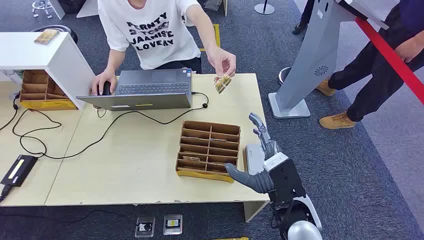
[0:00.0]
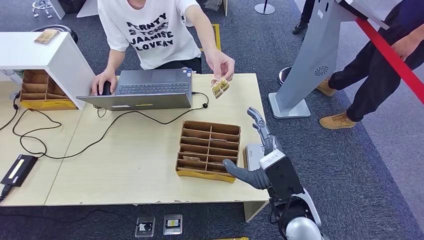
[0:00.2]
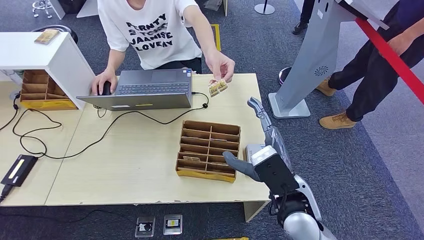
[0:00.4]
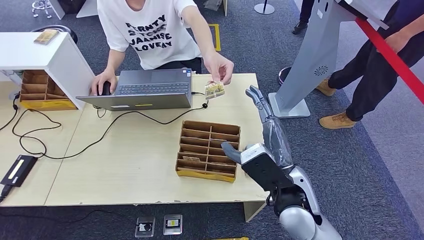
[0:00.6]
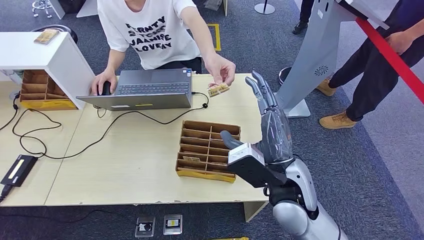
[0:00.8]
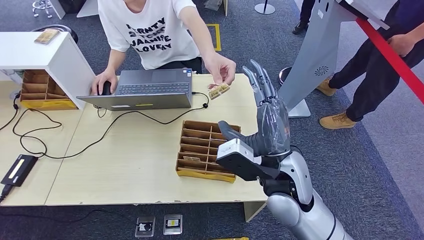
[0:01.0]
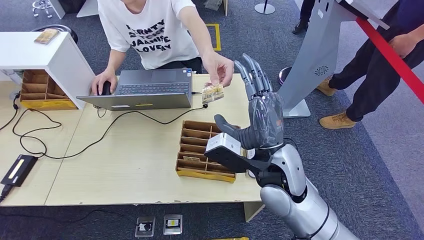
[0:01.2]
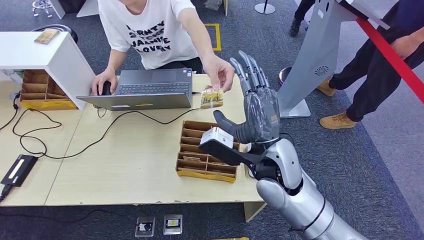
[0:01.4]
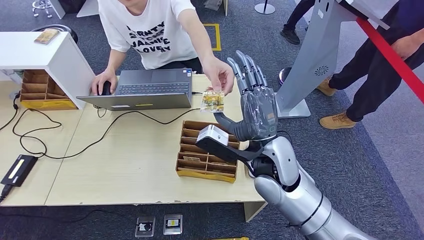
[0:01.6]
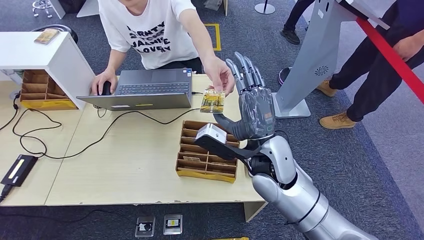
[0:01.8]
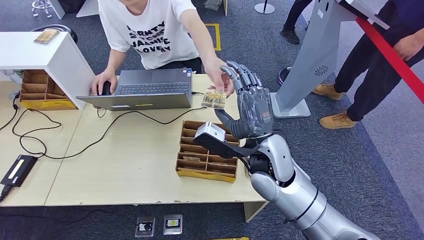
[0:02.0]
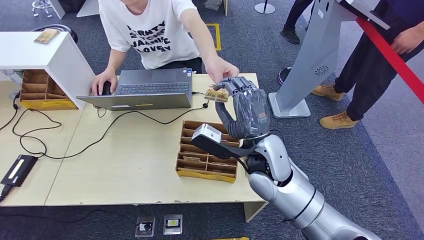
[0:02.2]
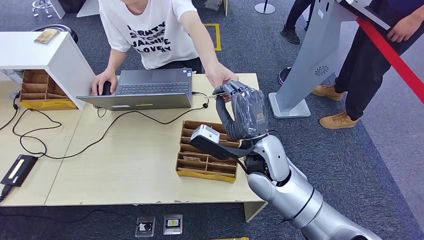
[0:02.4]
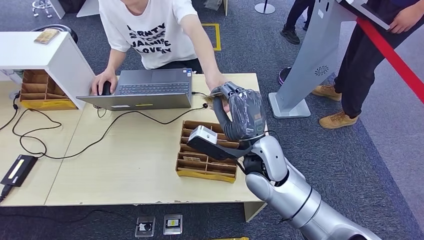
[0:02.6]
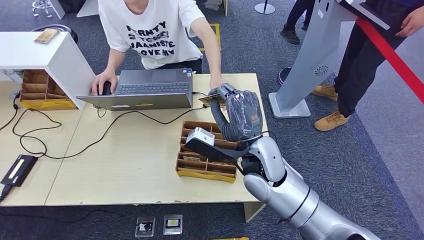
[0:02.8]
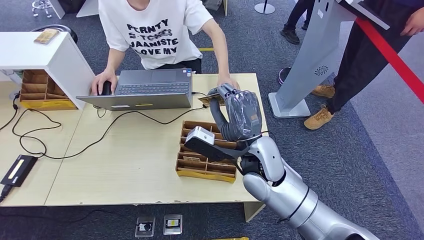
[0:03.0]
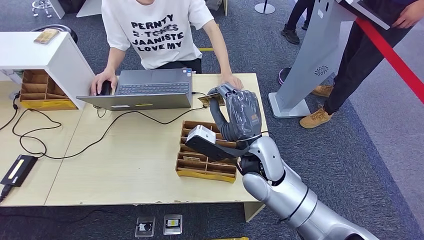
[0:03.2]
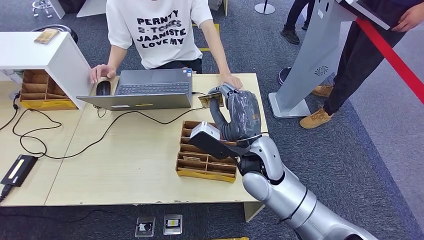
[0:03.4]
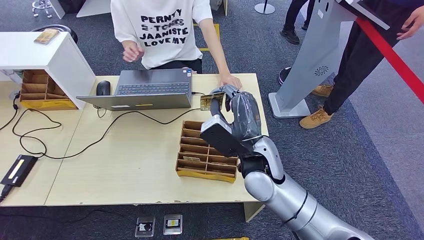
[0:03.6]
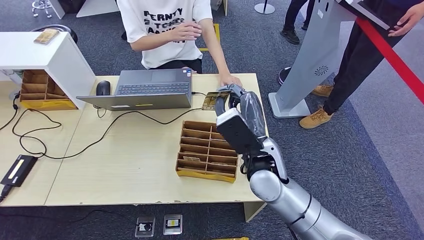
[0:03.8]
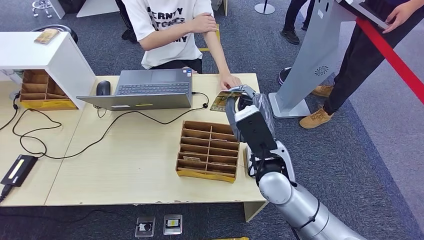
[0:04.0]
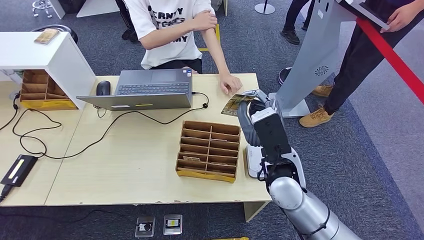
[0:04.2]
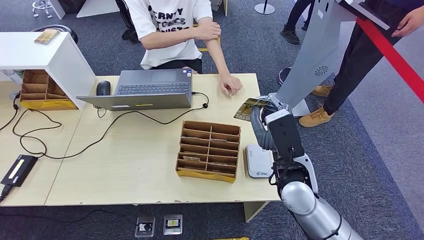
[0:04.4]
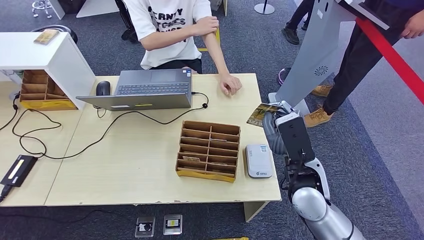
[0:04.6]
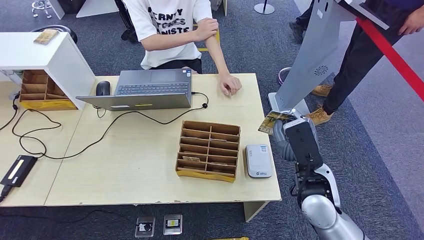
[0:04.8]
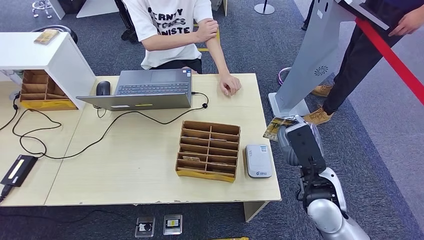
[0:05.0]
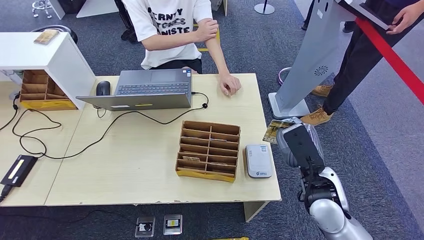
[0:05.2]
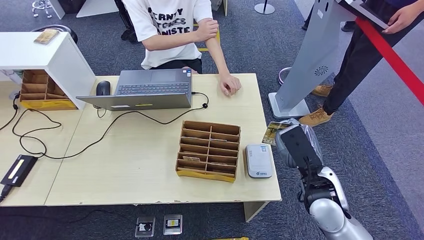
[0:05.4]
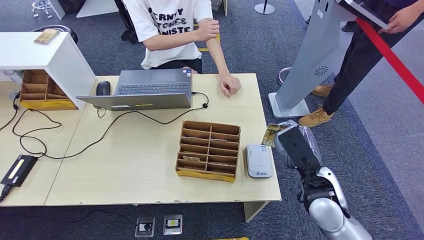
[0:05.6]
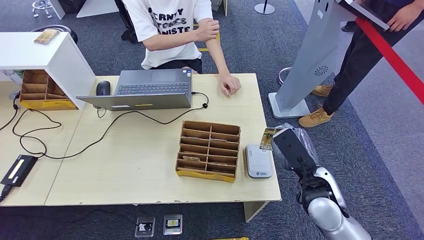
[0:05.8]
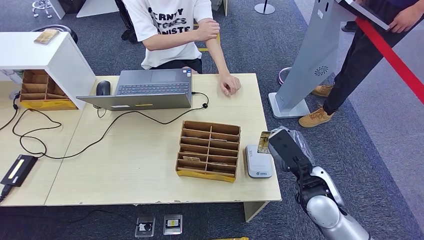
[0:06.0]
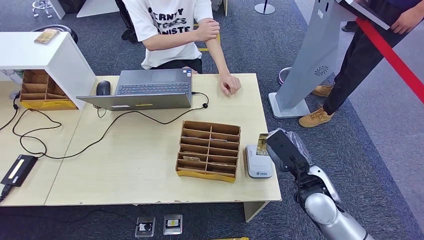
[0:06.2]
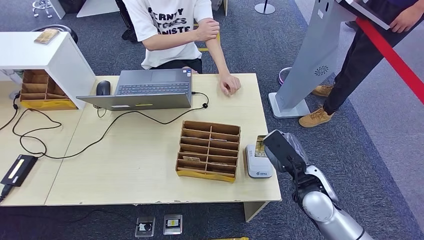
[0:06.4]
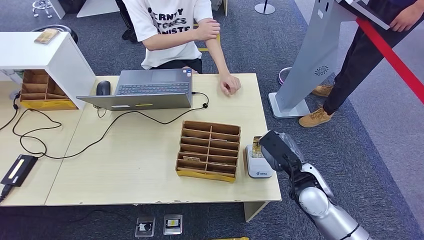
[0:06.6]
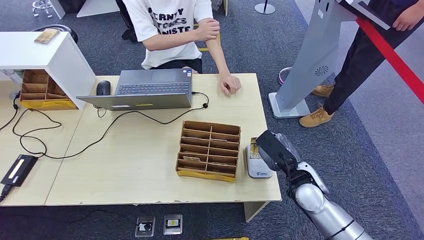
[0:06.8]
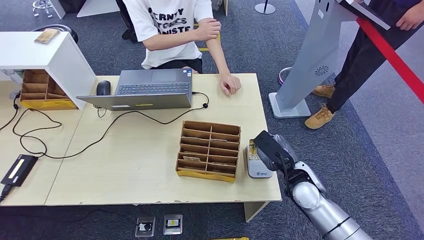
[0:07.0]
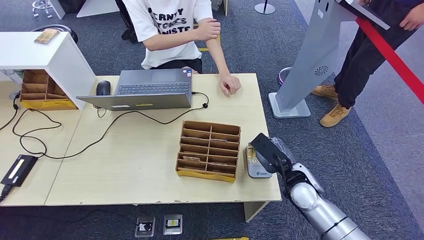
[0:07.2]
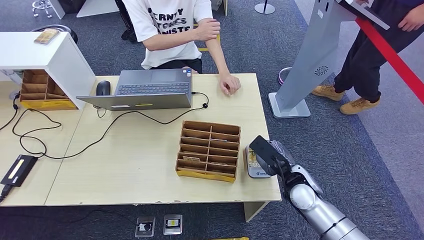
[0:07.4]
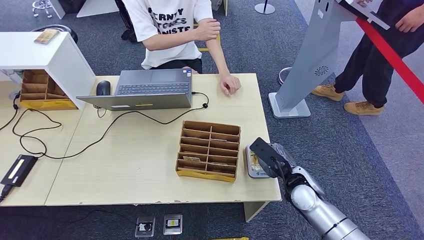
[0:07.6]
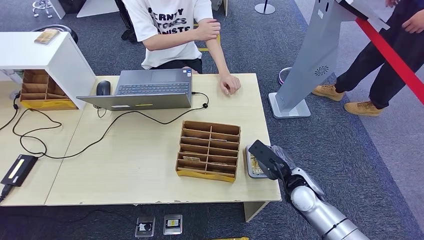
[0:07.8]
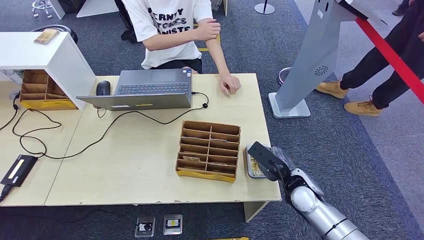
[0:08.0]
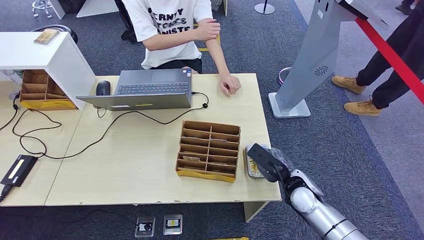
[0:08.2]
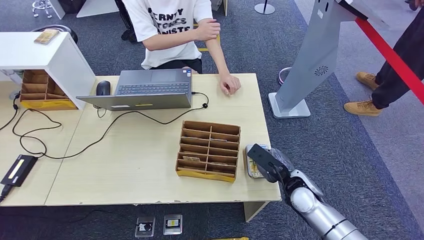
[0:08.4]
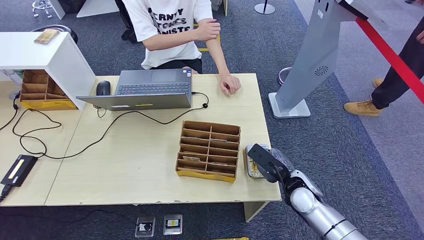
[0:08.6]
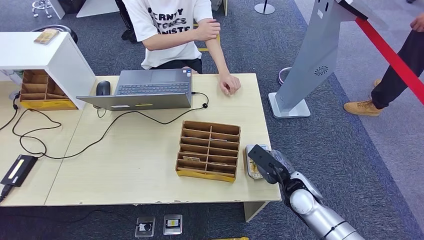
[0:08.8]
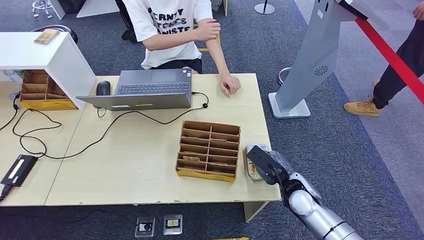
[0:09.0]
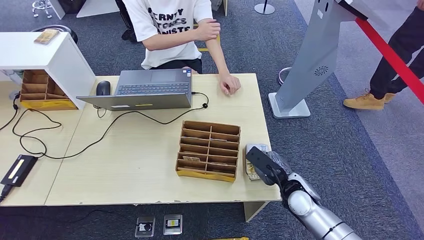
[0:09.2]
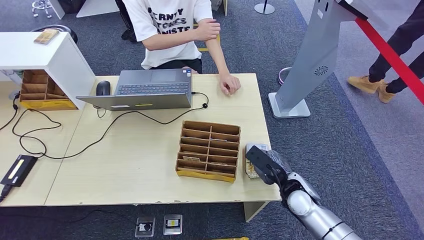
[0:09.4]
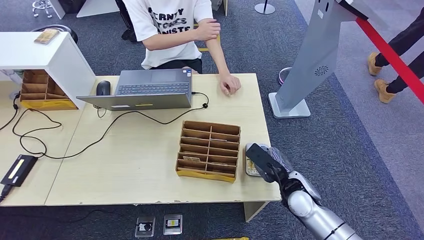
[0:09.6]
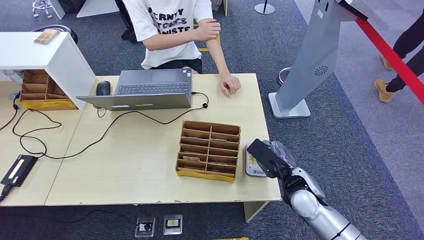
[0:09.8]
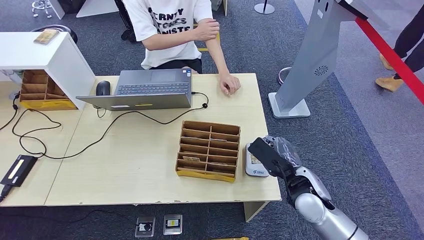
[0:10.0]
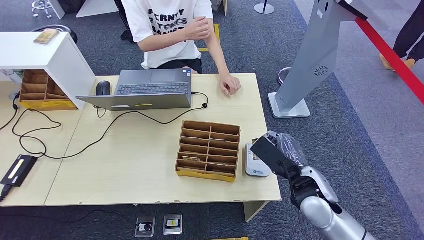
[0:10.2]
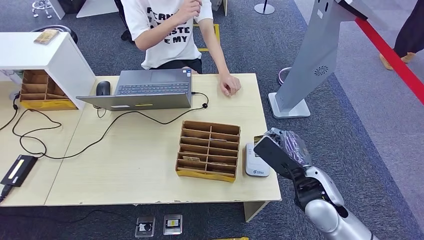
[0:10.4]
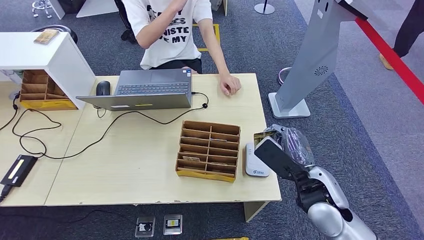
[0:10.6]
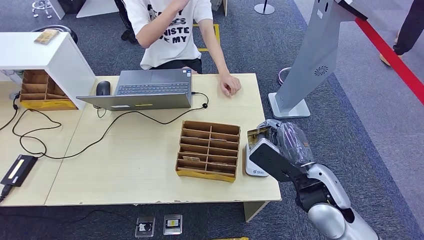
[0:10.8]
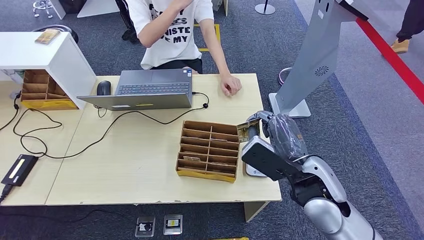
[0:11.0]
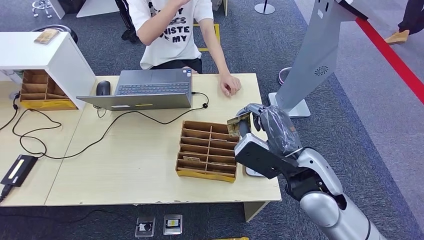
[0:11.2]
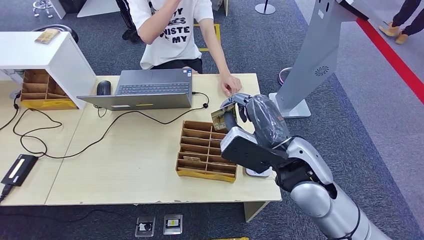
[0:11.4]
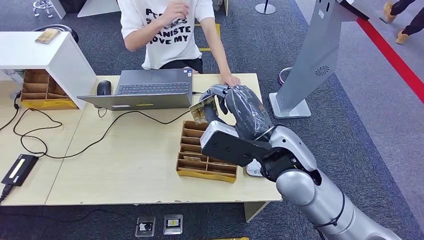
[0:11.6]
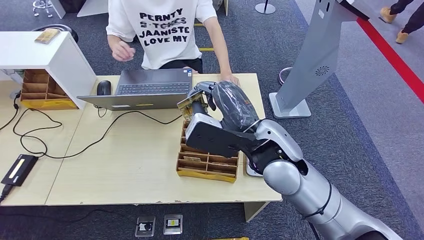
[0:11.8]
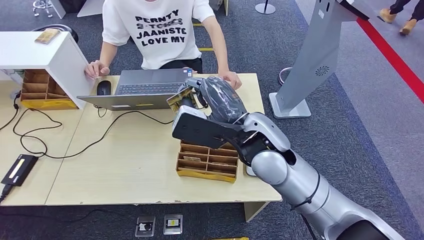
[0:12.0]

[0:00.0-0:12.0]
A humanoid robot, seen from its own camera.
Step, 0.0 to 4.8 s: Take the ID card from the person's hand.
Step, 5.0 to 11.2 s: Place the ID card on the card reader.
1.6 to 3.0 s: There are only small adjustments of the hands.
3.0 to 4.4 s: The right hand goes approximately 5 cm to the right.
4.4 to 6.0 s: The right hand moves to the right, about 10 cm.
6.0 to 7.6 s: The right hand shifts approximately 5 cm downward.
7.6 to 9.0 s: The hands stay close to where they were, moving slightly.
9.0 to 10.4 s: The right hand moves upward, some 10 cm.
10.4 to 12.0 s: The right hand moves to the left and upward, roughly 20 cm.

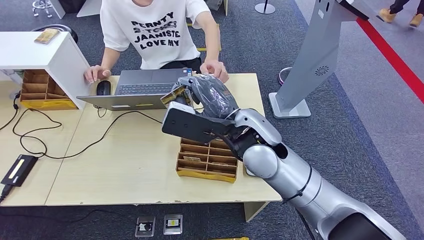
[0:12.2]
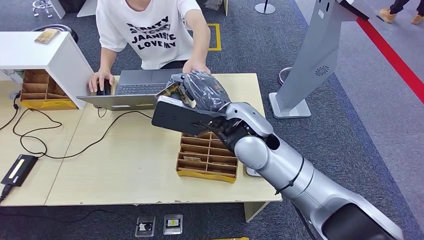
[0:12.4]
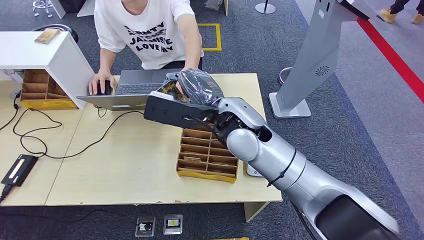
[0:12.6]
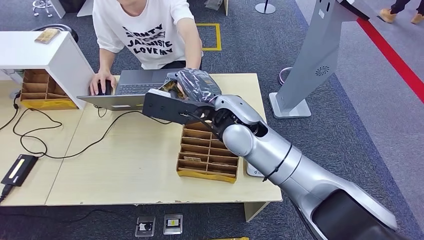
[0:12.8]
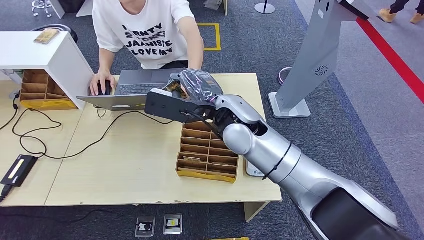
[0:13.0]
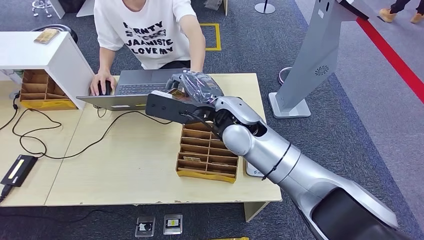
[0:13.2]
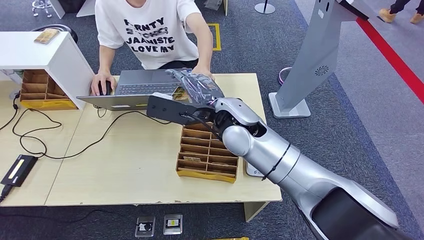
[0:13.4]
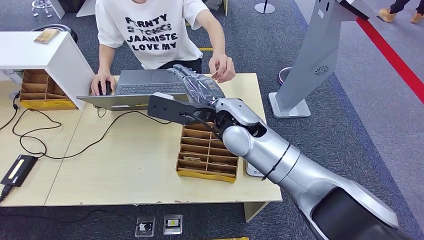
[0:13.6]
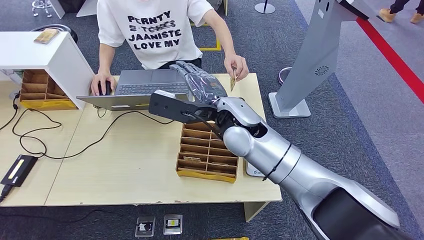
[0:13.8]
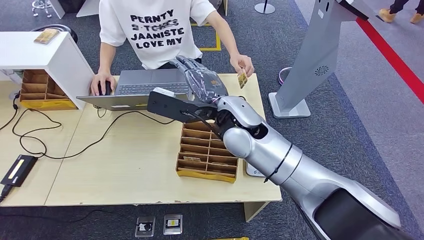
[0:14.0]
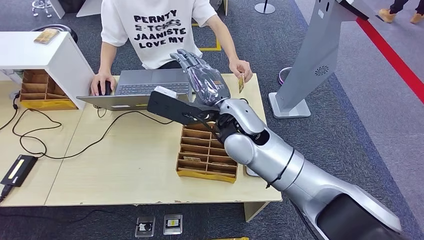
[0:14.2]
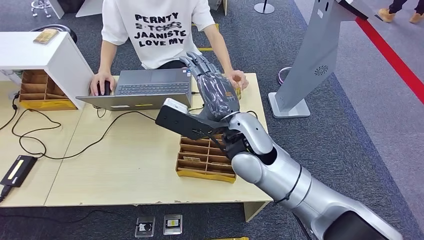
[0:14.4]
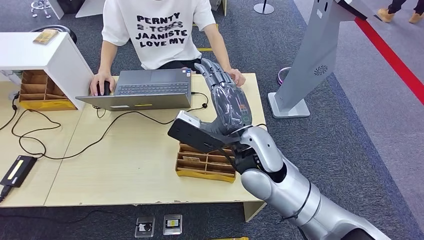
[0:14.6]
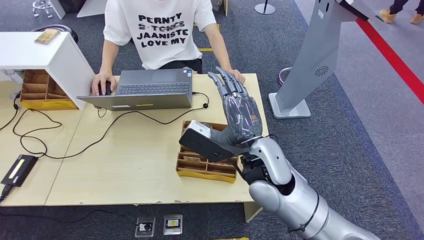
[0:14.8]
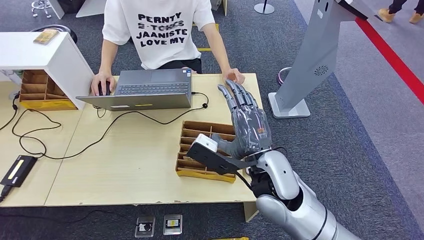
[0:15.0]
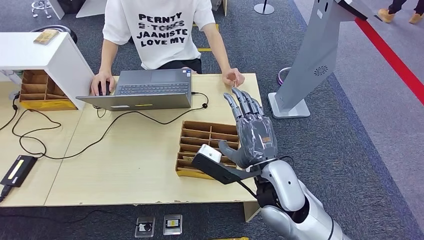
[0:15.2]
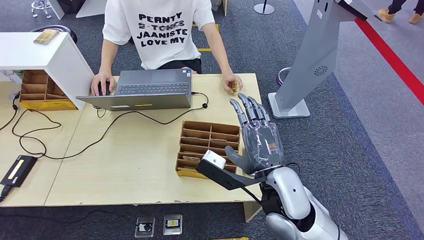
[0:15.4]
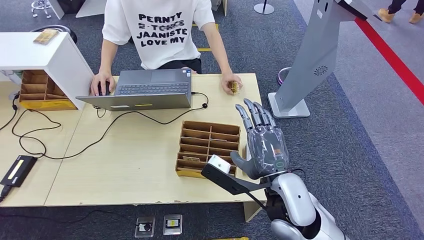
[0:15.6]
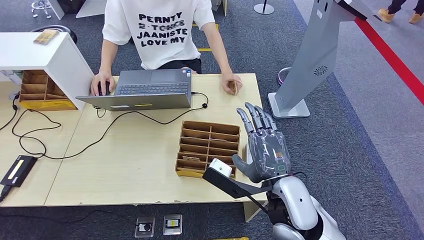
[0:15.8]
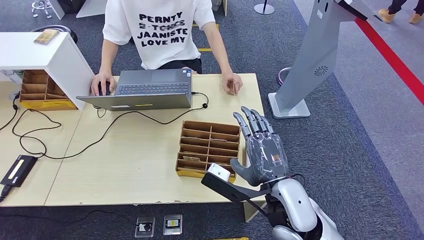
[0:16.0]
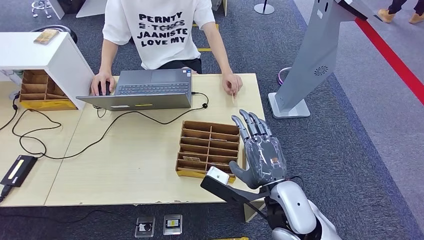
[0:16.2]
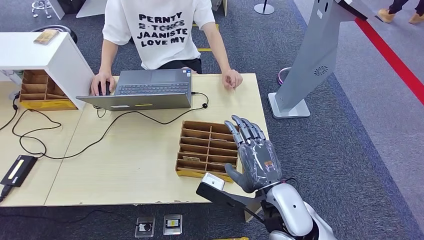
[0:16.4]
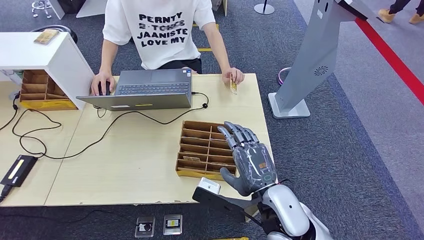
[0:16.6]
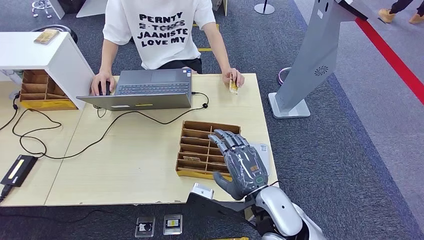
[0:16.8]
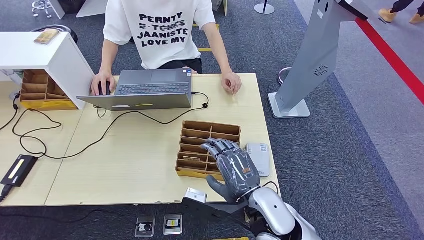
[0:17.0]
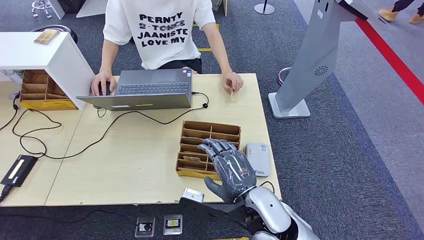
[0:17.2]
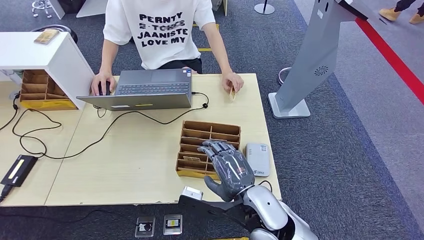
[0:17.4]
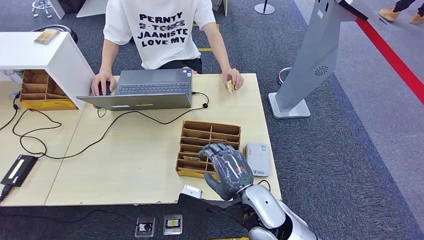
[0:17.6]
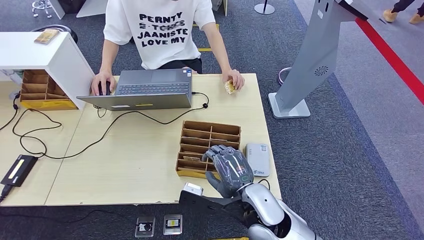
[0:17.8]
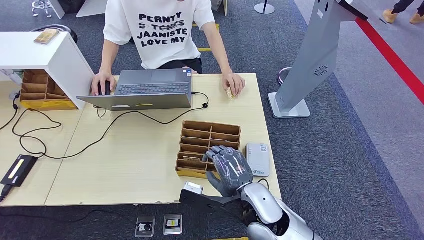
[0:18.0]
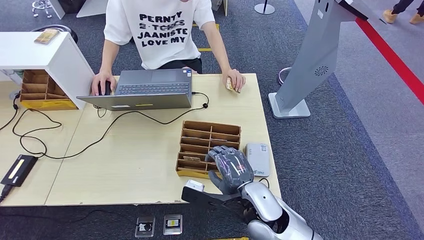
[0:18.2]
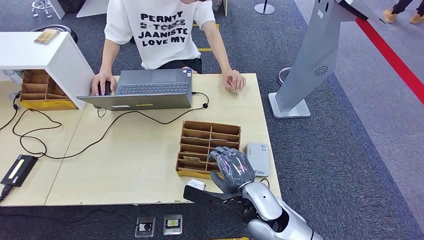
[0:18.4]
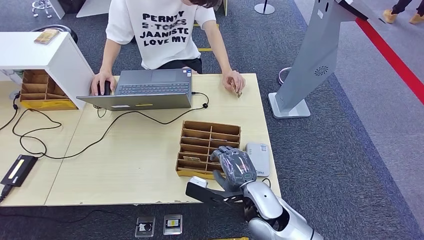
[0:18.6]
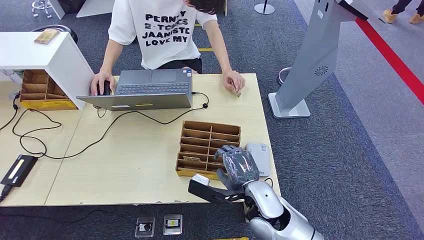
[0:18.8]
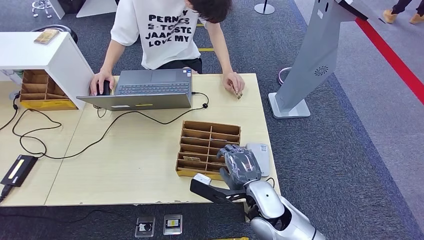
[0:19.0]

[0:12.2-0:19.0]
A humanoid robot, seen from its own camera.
Step, 12.2 to 15.8 s: Hand the ID card to the person.
12.2 to 13.6 s: The right hand moves about 5 cm.
15.0 to 16.2 s: The right hand travels backward by roughly 5 cm.
16.2 to 17.6 s: The right hand moves roughly 5 cm.
17.6 to 19.0 s: The hands stay close to where they were, moving slightly.
